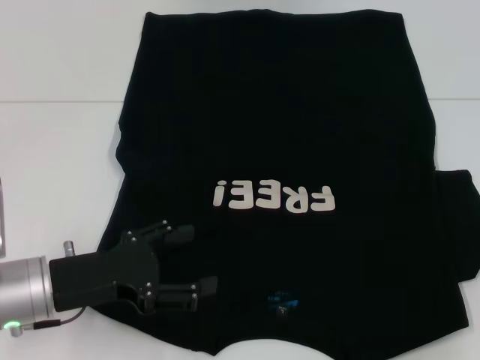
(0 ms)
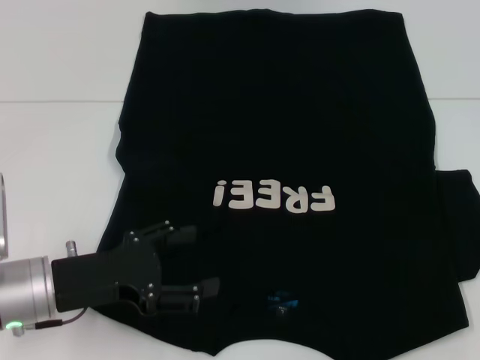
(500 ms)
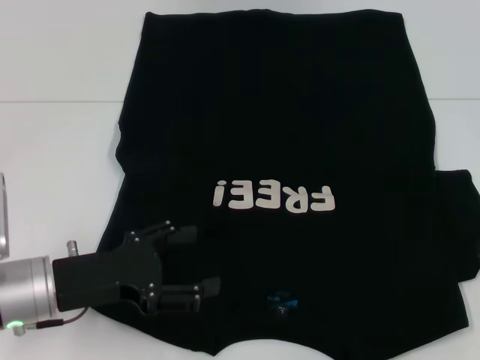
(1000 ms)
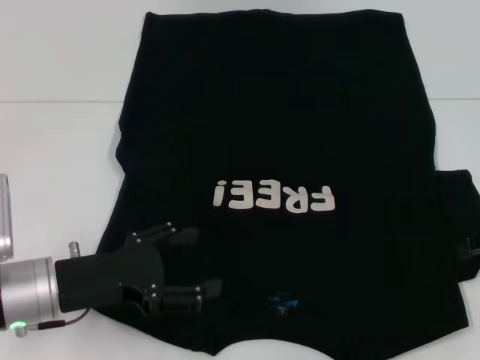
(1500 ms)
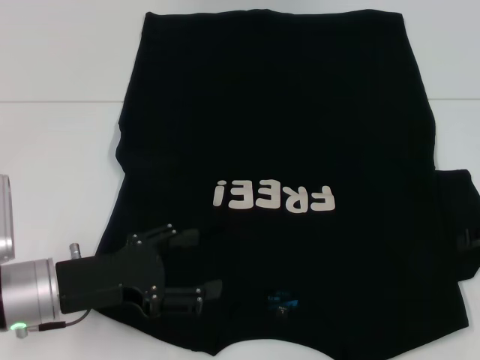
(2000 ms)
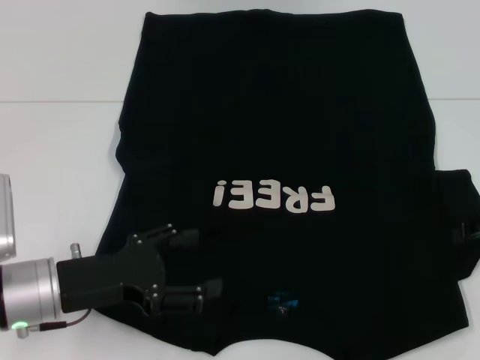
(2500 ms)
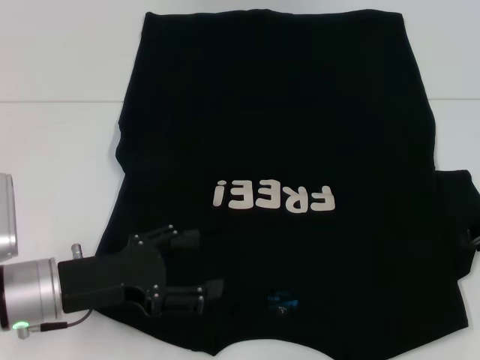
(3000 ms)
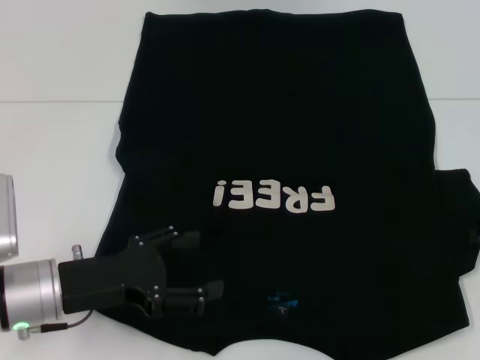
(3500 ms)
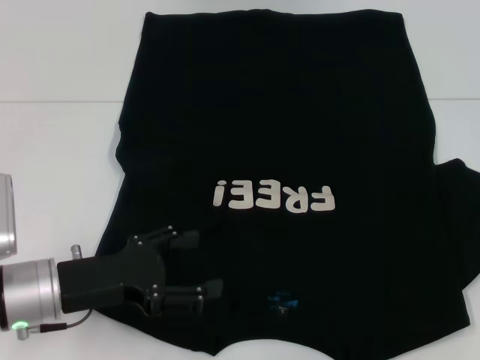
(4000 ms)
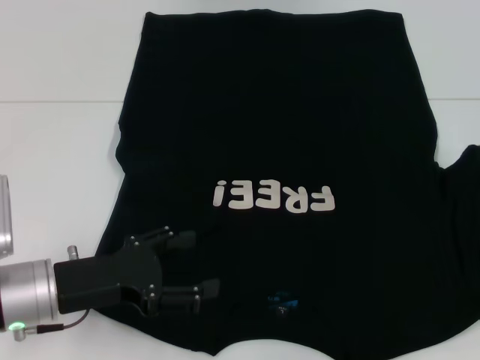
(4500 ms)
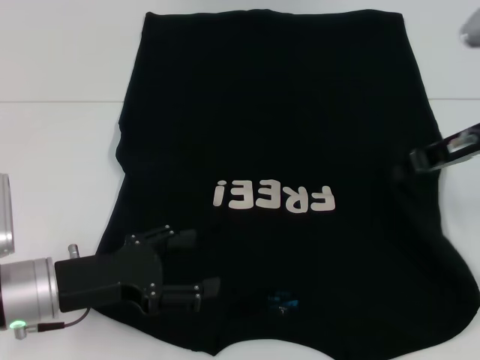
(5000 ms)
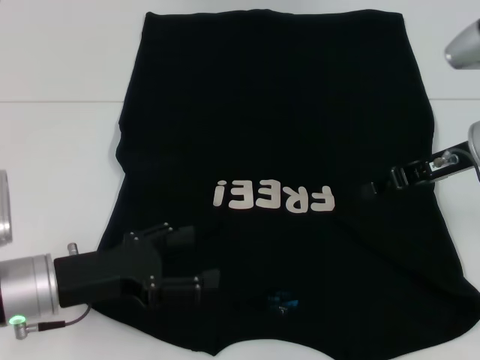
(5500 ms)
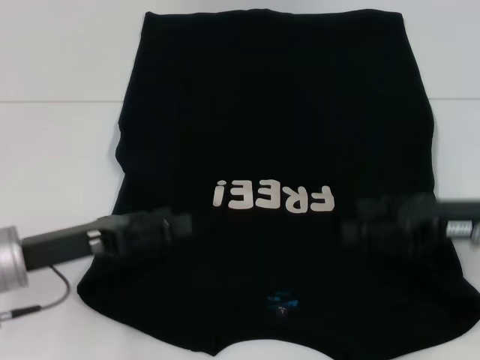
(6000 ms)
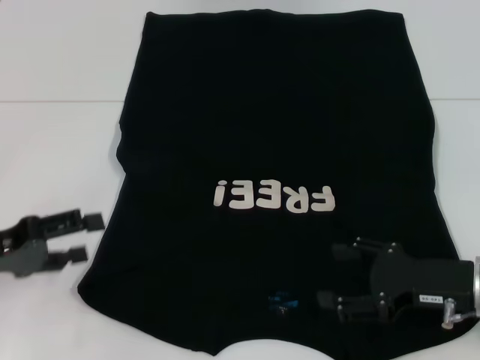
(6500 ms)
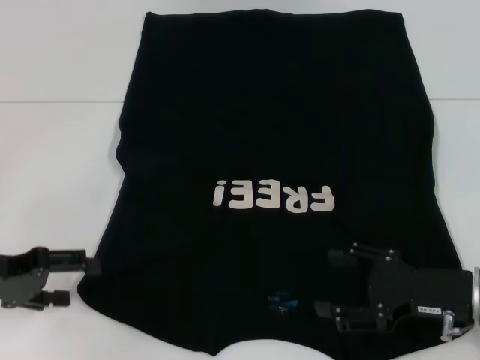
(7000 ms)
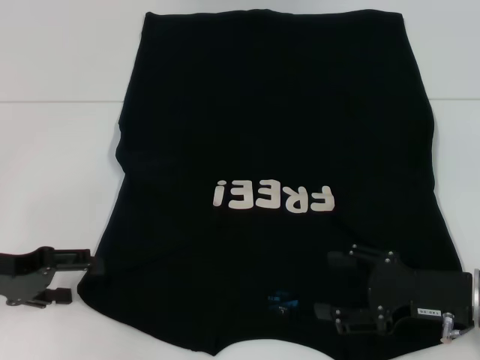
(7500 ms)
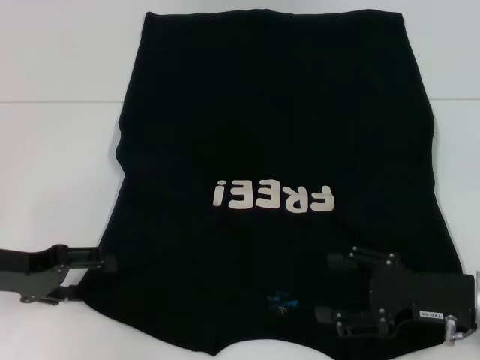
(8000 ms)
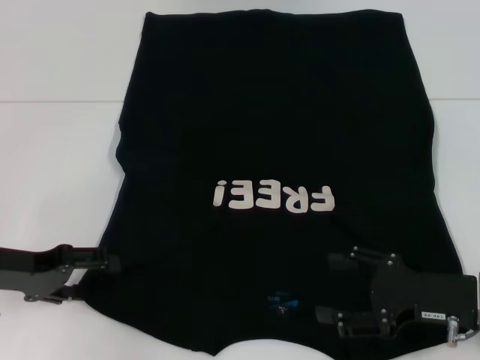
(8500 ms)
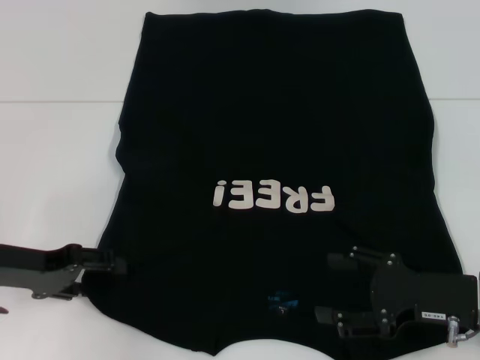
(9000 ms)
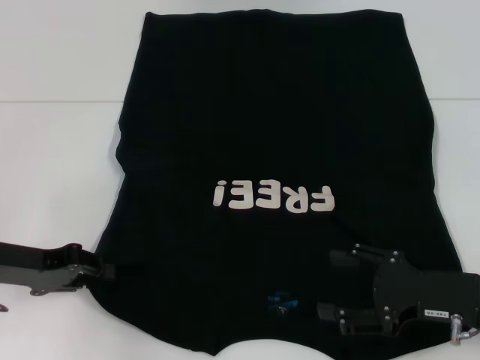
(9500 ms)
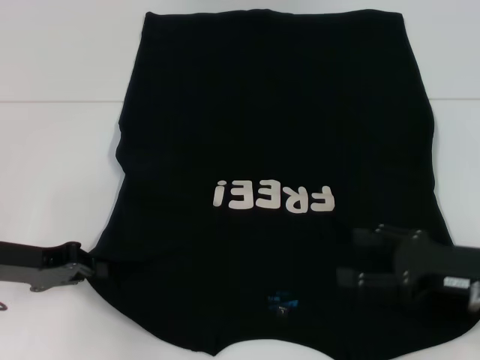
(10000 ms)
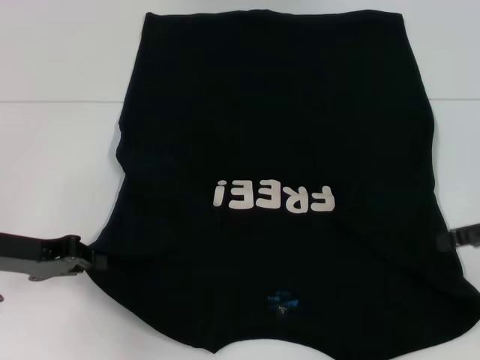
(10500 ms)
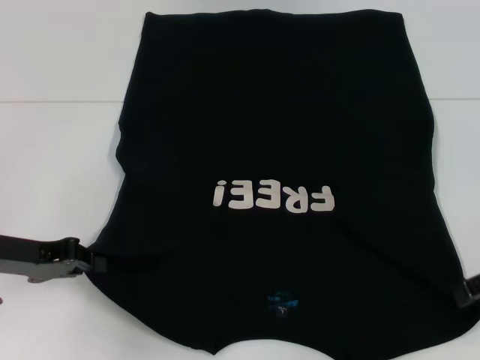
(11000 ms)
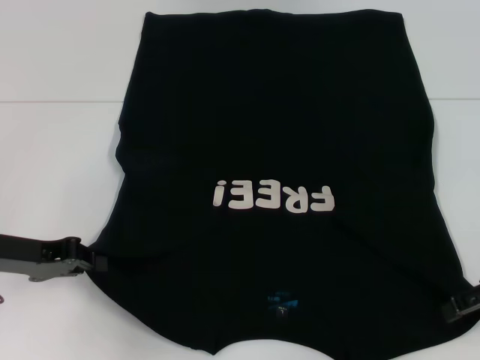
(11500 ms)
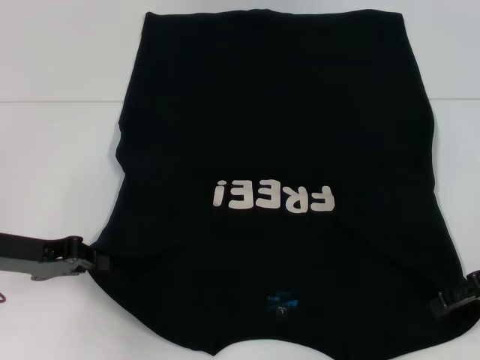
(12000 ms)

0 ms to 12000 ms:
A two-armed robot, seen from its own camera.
Step, 0 ms to 5000 ms: Fold the bottom right sleeve with your right hand.
Step, 5500 ms to 9500 ms: Grab the bottom left corner with your left hand.
4000 ms to 6000 ms: The right gripper travels to the left by roughly 10 cm, and opens.
6000 ms to 8000 ms: The right gripper heads downward and backward, covering approximately 10 cm, and opens its fingers. Meanwhile the left gripper travels to the left by approximately 5 cm.
8000 ms to 10000 ms: The left gripper closes.
10000 ms to 12000 ms: The right gripper goes roughly 5 cm upward.

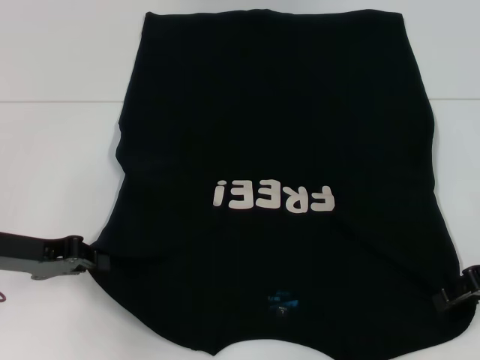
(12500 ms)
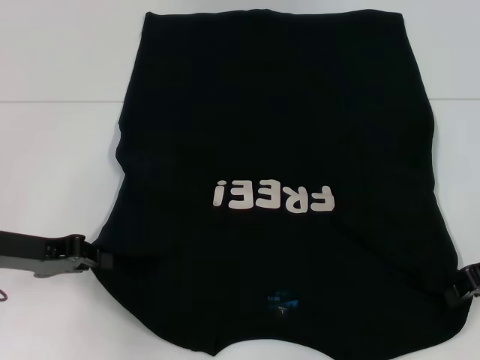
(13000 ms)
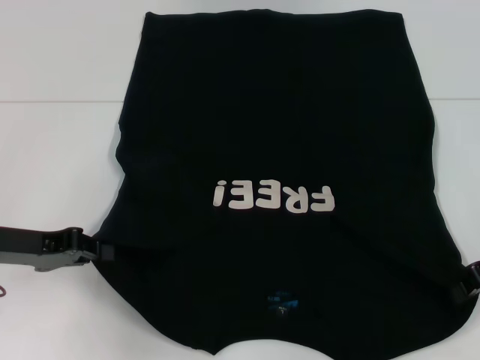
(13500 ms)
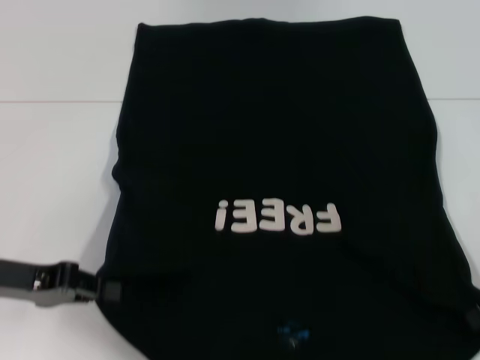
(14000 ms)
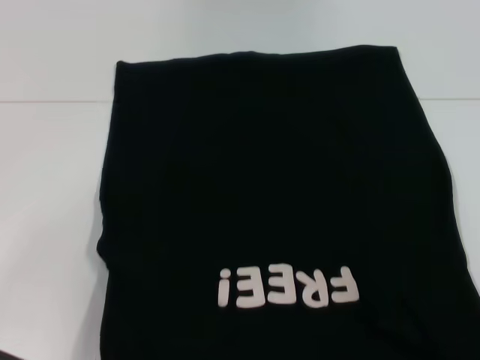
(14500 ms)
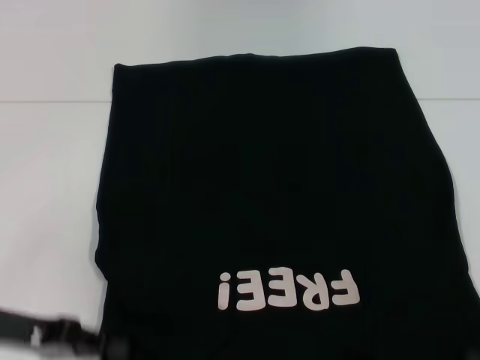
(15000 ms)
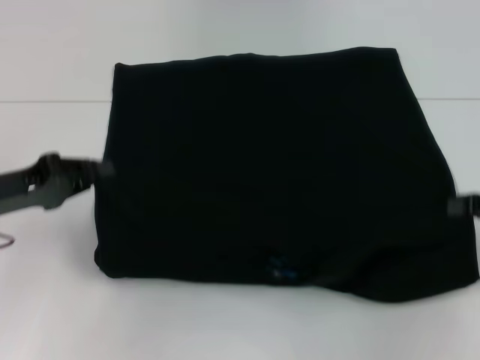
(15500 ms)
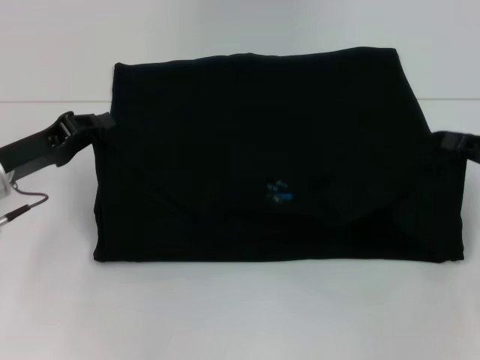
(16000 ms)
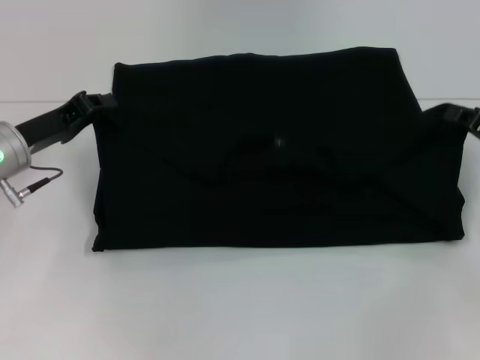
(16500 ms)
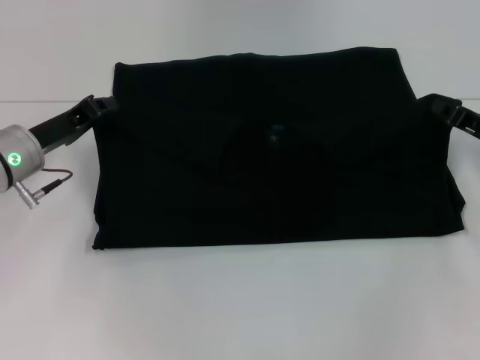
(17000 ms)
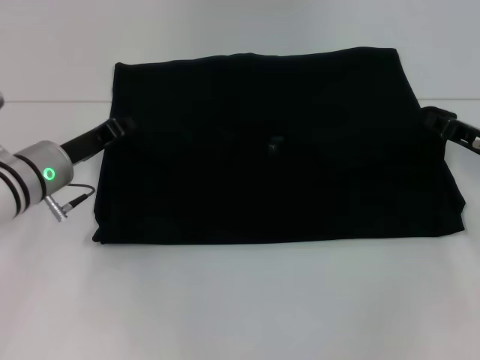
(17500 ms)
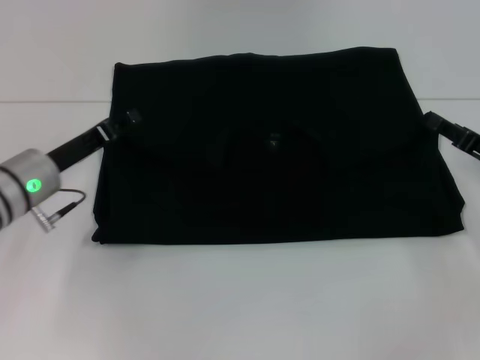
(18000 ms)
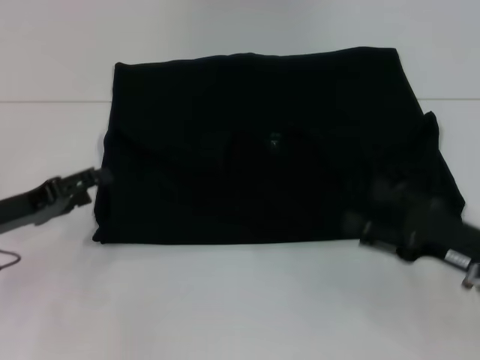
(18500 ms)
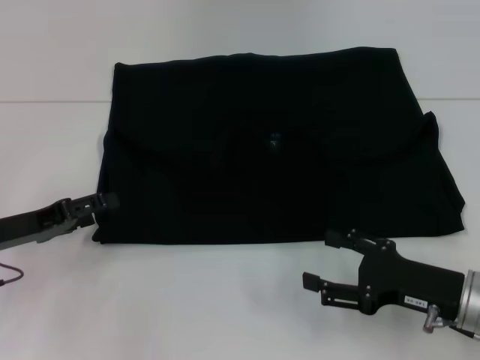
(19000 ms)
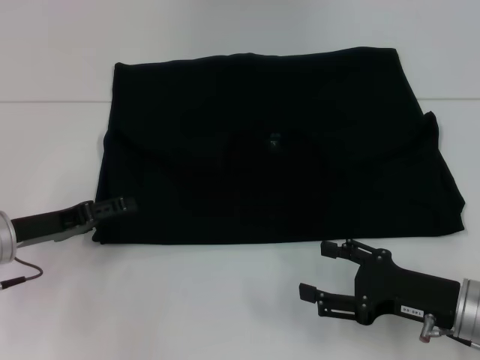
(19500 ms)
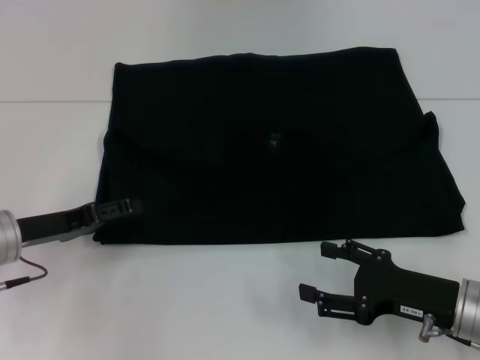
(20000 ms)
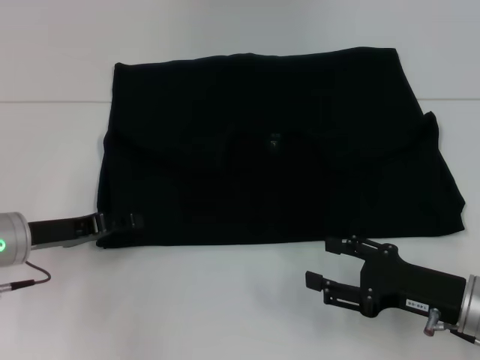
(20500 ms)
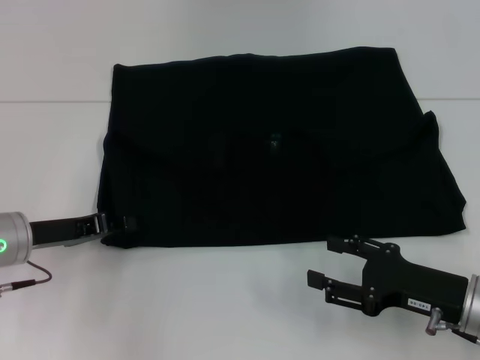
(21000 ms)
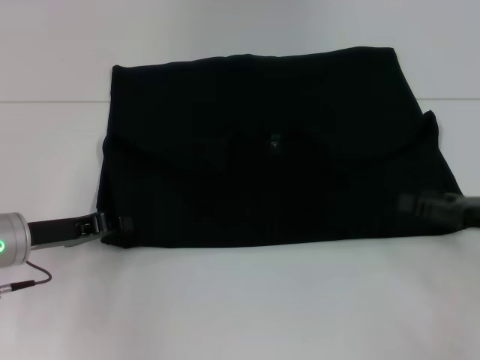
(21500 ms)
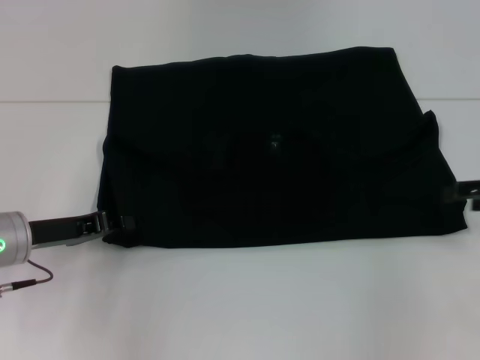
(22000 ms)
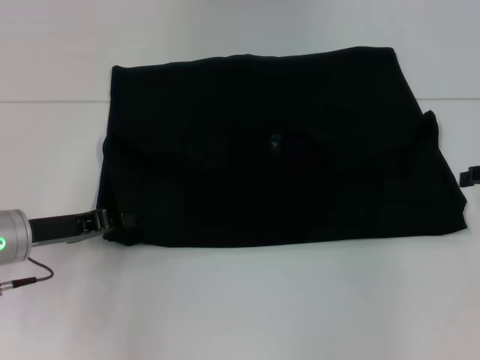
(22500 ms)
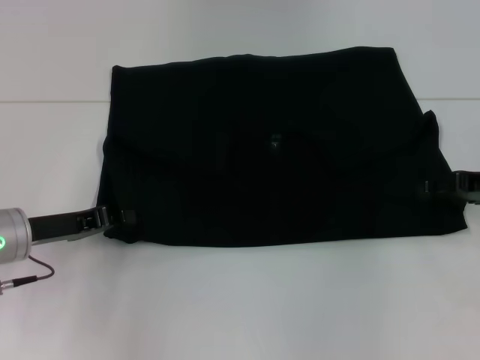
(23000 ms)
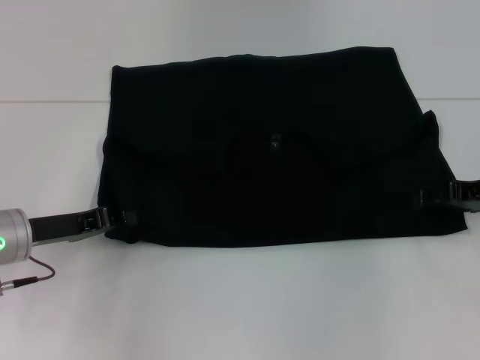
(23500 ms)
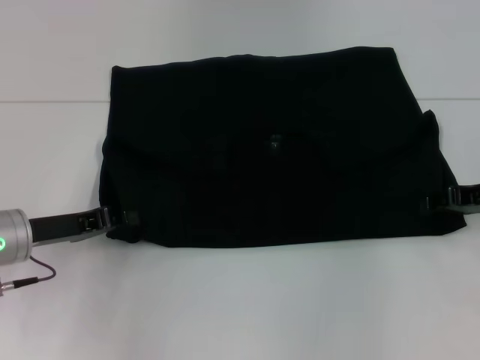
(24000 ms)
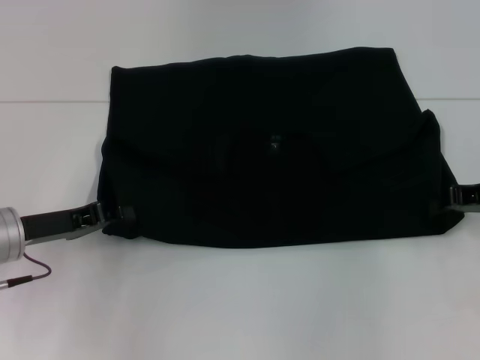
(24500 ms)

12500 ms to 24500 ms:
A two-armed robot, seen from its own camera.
Step, 13000 ms to 17500 ms: Fold the clothes with your left hand.
Step, 13000 ms to 17500 ms: Fold the clothes with your right hand.
12500 ms to 14500 ms: Both grippers travel together backward, approximately 5 cm. The right gripper closes up.
14500 ms to 16500 ms: Both grippers travel together forward, some 10 cm.
16500 ms to 18500 ms: The right gripper shifts about 10 cm backward and to the left, and opens its fingers. The left gripper goes approximately 5 cm backward, and opens its fingers.
18500 ms to 20500 ms: The grippers make only small movements.
20500 ms to 22500 ms: The left gripper closes, while the right gripper travels to the right, upward and forward by some 20 cm.
22500 ms to 24500 ms: The right gripper shifts by approximately 5 cm, and closes its fingers.

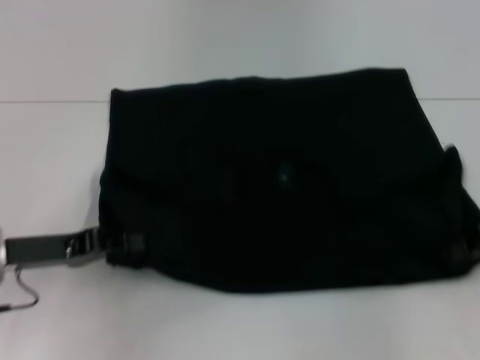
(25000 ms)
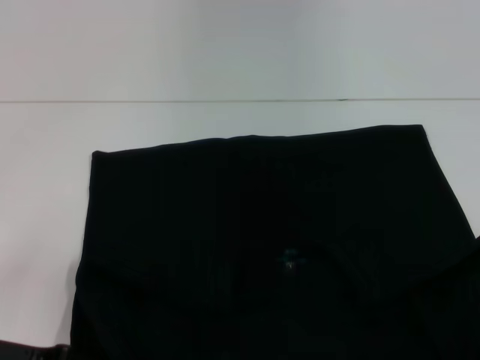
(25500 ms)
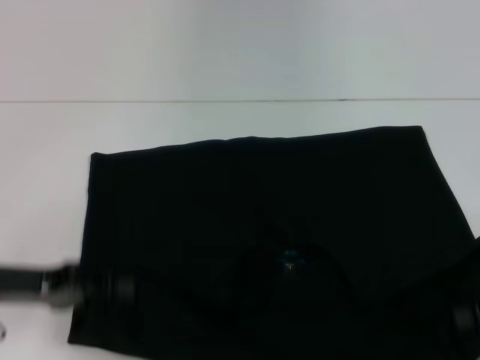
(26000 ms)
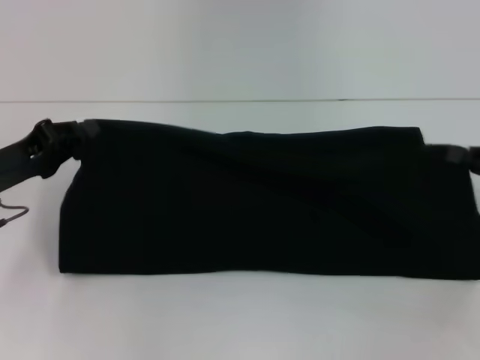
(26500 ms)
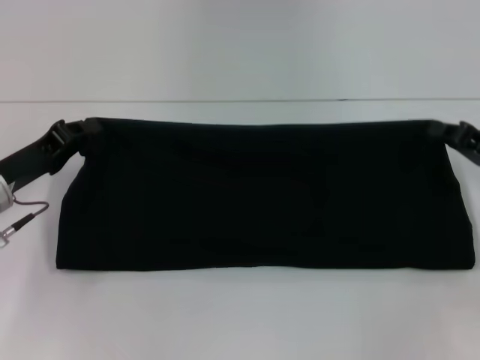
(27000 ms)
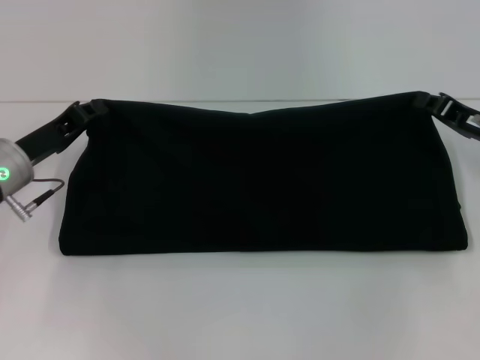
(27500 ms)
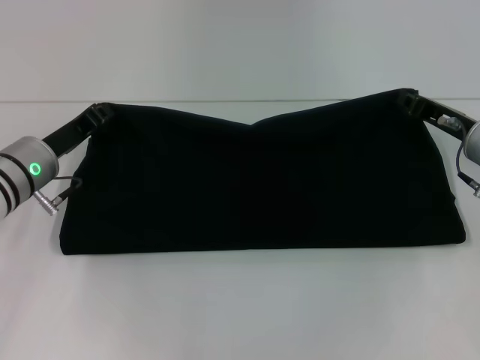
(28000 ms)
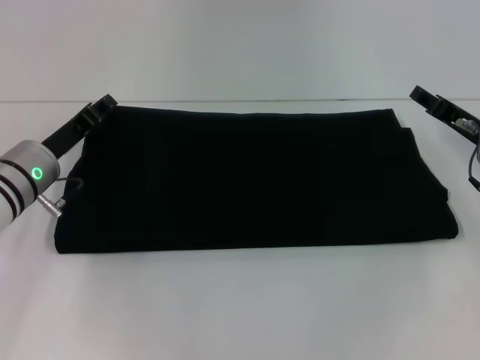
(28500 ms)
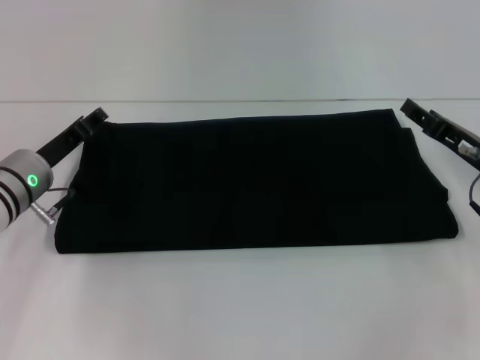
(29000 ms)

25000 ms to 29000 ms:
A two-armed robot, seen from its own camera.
Step, 26000 ms to 28500 ms: Fold the clothes with your right hand.
25000 ms to 27000 ms: The right gripper reaches approximately 10 cm backward, then returns.
27000 ms to 29000 ms: The right gripper opens up; the left gripper changes place by about 5 cm, and opens.
